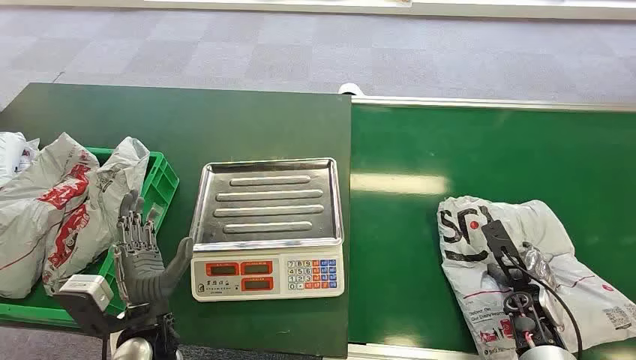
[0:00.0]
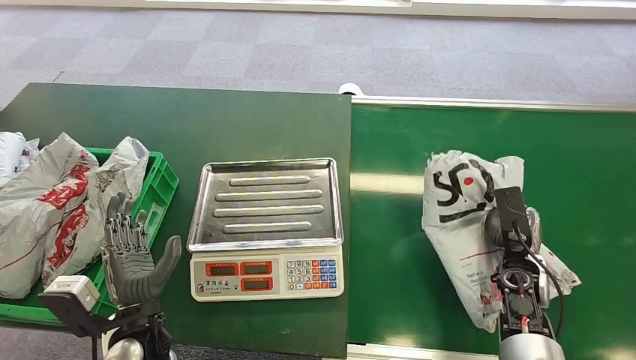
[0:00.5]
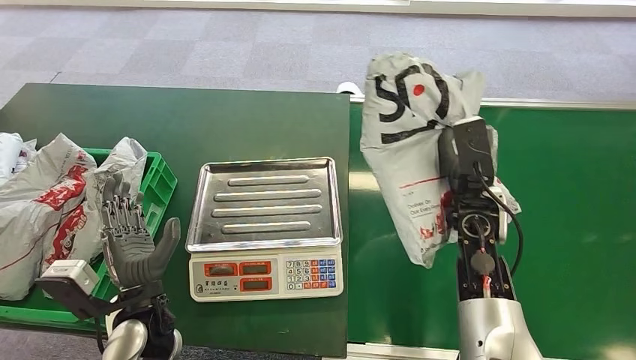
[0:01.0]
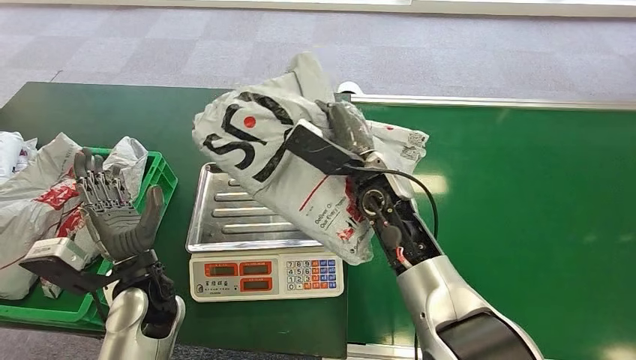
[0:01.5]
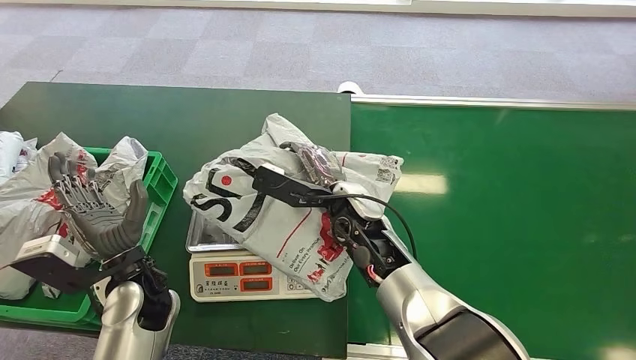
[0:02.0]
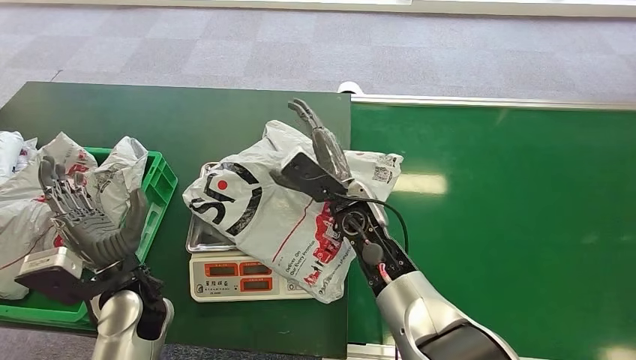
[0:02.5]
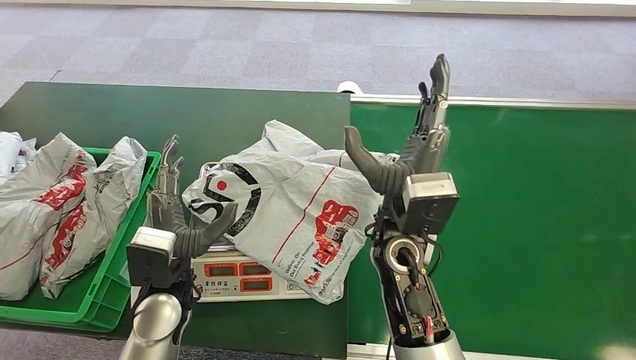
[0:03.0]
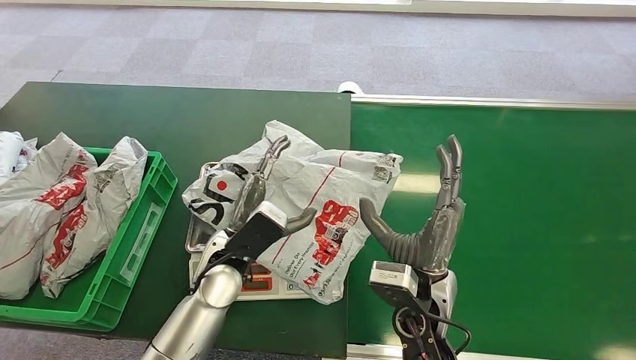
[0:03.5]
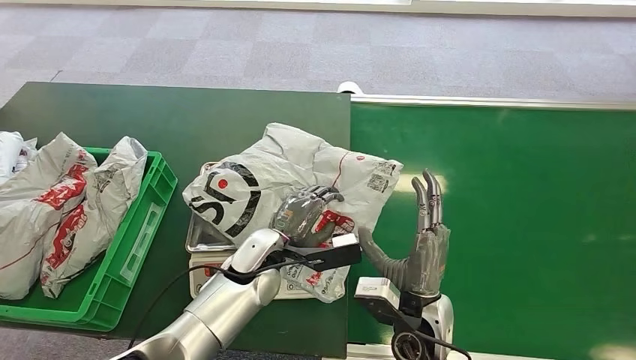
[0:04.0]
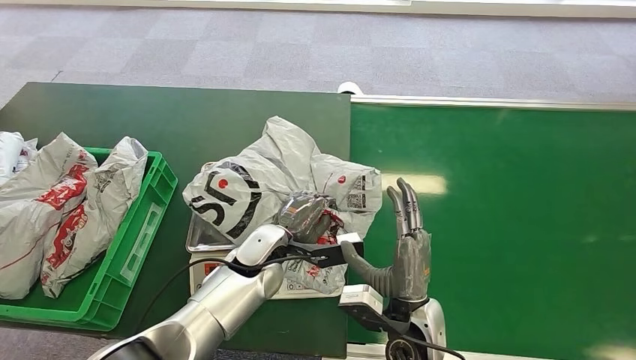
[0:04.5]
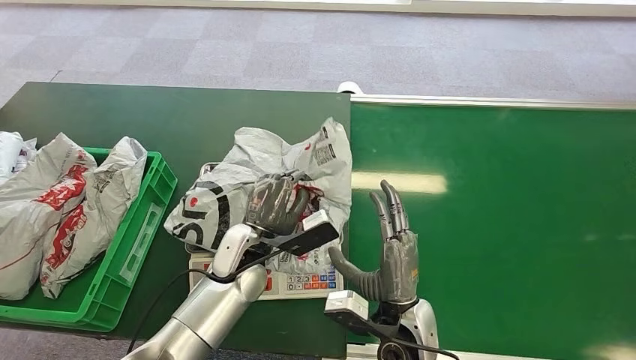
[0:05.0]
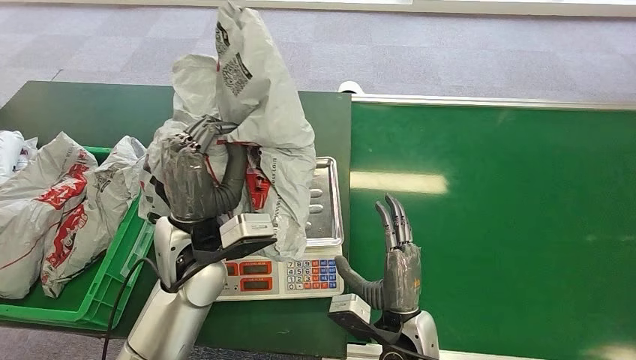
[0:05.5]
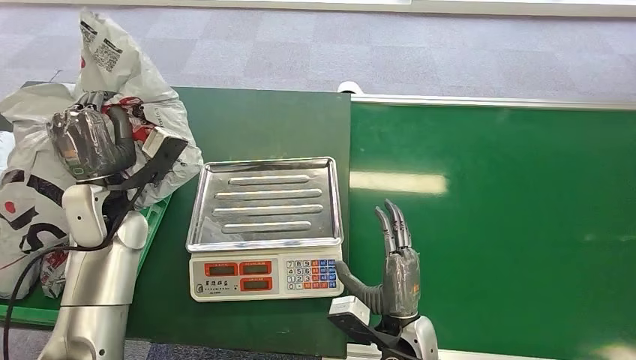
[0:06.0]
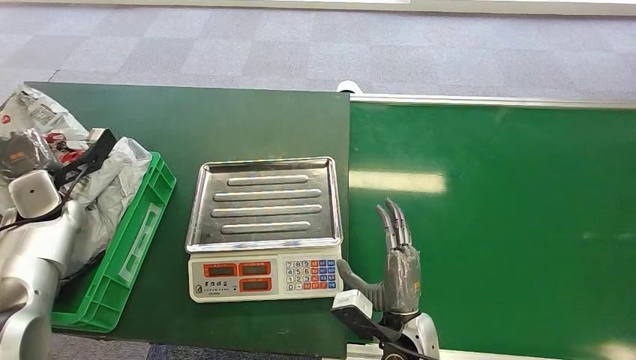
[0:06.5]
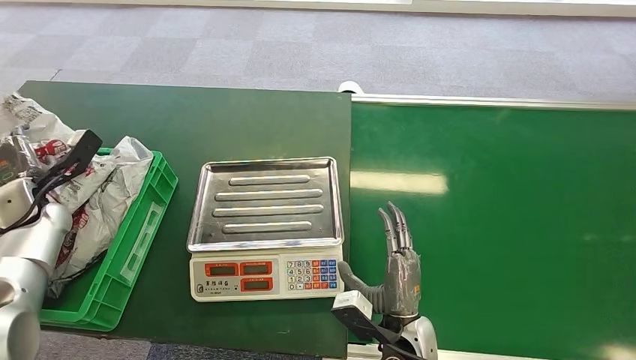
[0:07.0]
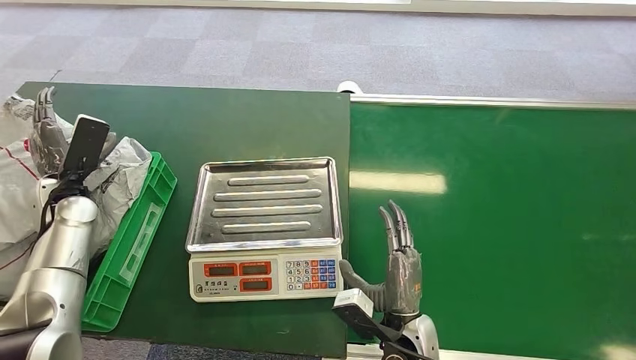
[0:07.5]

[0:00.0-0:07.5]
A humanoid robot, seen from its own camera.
Step, 0:00.0 to 0:00.5: Pick up the package from the conveyor belt.
Step, 0:01.5 to 0:02.5: Place the package onto the inbound machine.
Step, 0:05.0 to 0:06.0: Pick up the package from the inbound machine.
Step, 0:06.5 to 0:07.0: Place the package into the parcel locker.
